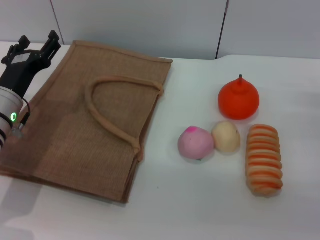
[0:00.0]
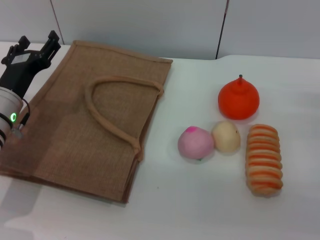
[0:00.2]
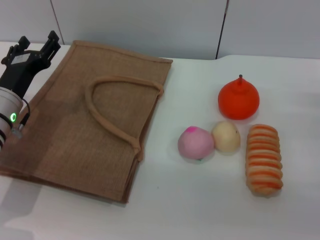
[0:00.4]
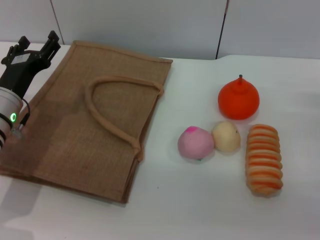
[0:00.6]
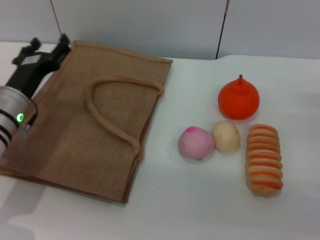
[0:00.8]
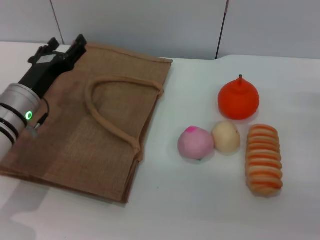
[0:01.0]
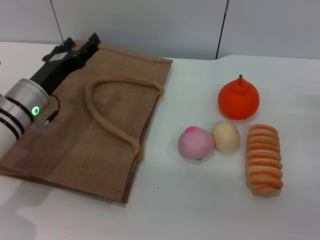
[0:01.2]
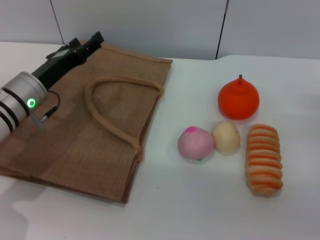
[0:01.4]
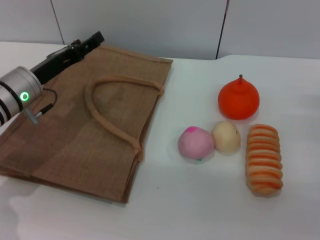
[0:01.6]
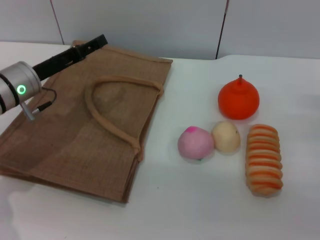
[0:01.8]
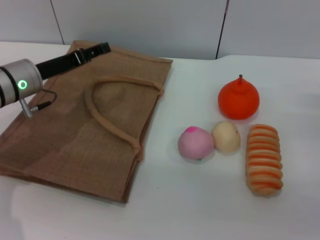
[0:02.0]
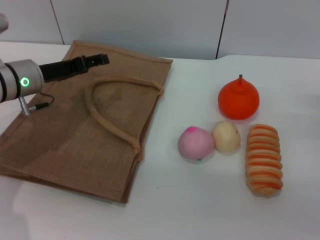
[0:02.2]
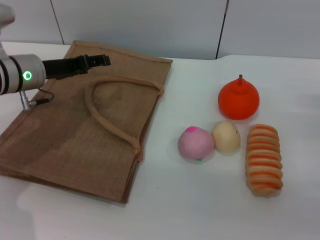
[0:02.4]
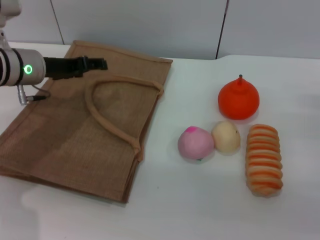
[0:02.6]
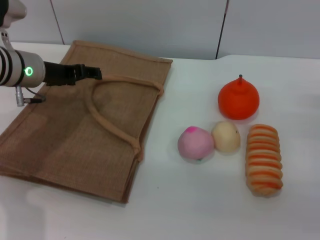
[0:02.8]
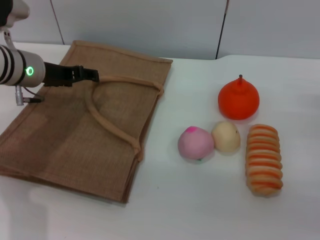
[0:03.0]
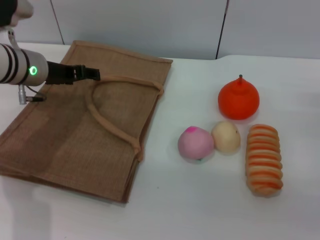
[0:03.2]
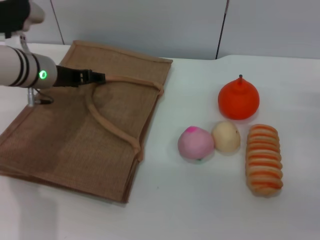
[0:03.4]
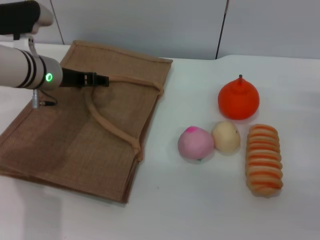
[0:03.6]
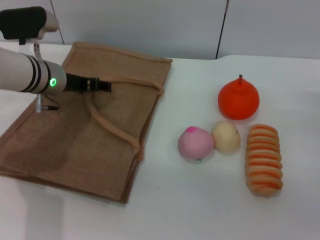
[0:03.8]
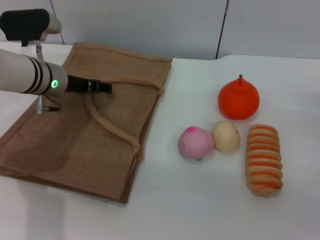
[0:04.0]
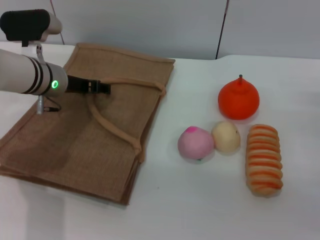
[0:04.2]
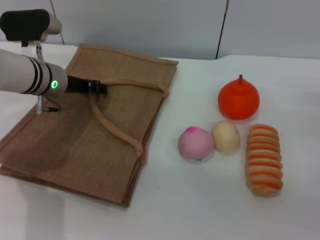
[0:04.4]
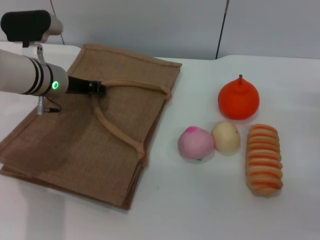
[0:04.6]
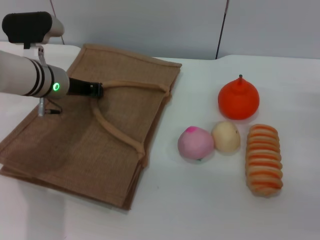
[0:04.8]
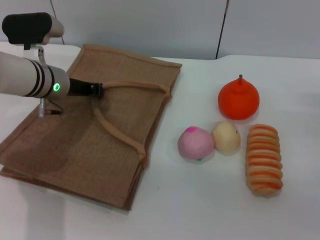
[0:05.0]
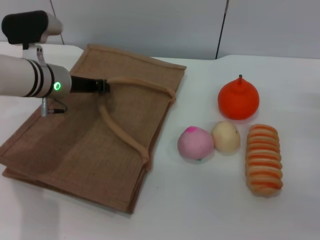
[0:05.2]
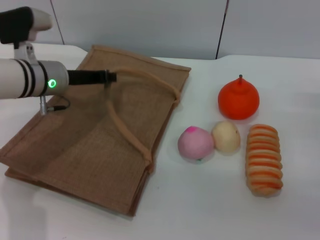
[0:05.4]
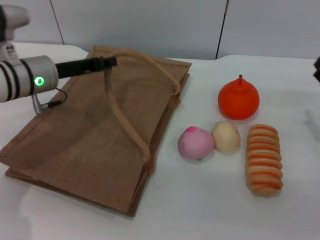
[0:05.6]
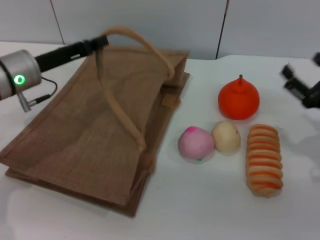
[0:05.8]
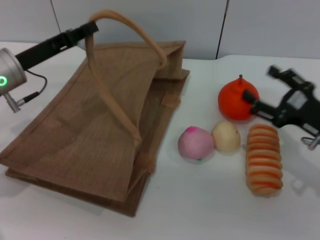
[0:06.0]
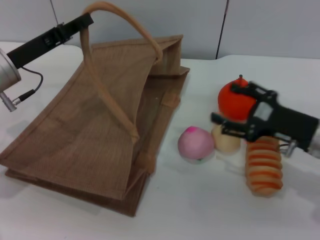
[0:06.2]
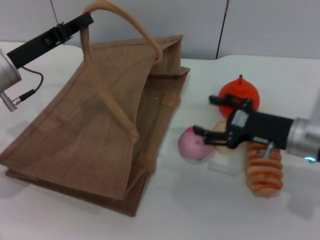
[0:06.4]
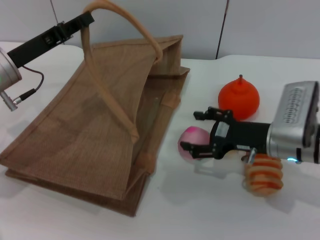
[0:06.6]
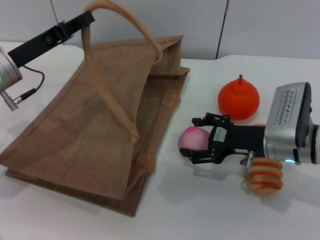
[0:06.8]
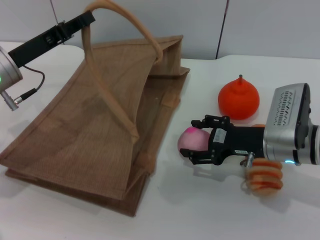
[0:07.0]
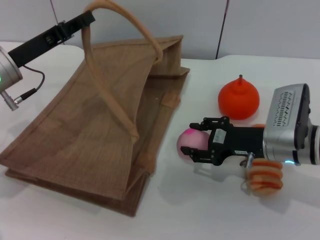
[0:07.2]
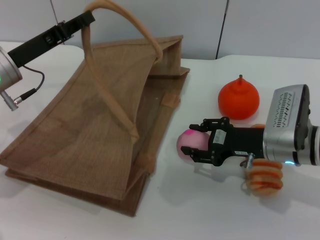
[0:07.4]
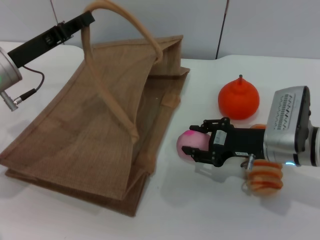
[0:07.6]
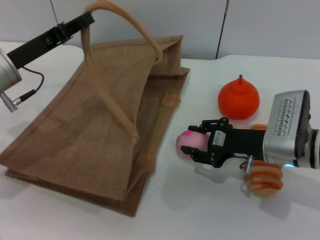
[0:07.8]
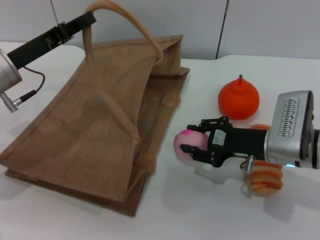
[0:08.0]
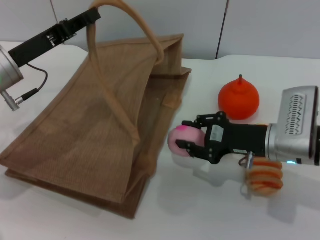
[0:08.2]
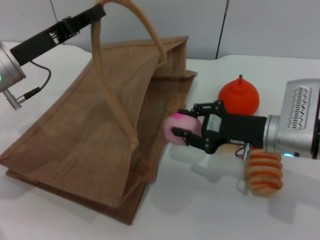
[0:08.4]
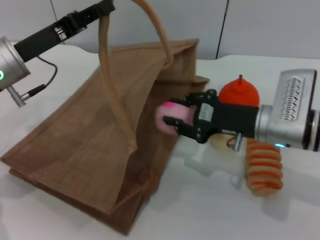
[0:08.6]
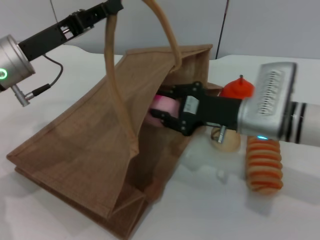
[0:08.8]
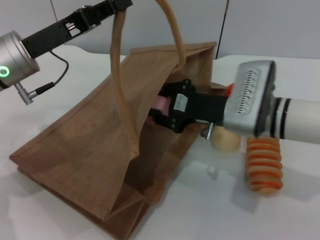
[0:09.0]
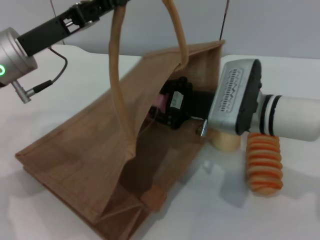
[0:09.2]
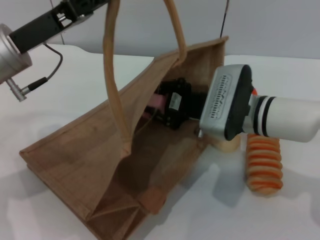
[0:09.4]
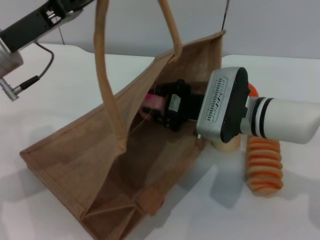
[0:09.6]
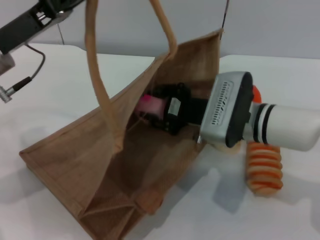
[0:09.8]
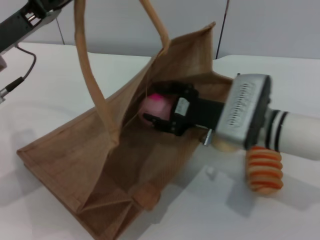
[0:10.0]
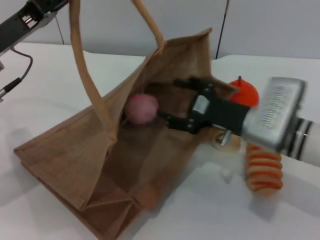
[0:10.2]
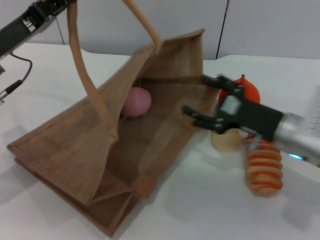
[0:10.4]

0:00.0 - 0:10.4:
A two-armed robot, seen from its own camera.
Task of the whole recording: pick up the peach from the table and place it in the brown handbag.
Step, 0:00.0 - 0:05.4: Lift the woven bag with the left gripper to open it.
Step, 0:05.6 - 0:08.2: Pick up the peach with the right gripper.
0:01.4 - 0:03.0: The left gripper heads upward, covering approximately 5 cm.
0:03.0 - 0:04.4: The grippers stay close to where they were, moving slightly.
0:04.4 - 0:06.0: The right gripper moves to the left, some 5 cm, while the left gripper travels backward and to the left by approximately 10 cm, and closes its fingers.
0:06.0 - 0:07.4: The right gripper shifts about 10 cm to the left, and closes up.
0:07.4 - 0:09.0: The right gripper is displaced to the left by some 5 cm, and closes up.
0:09.0 - 0:10.4: The right gripper moves to the right, roughly 5 cm, and opens its fingers.

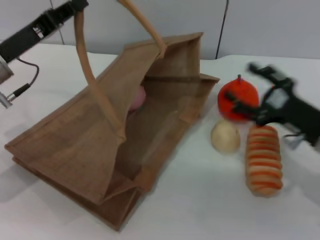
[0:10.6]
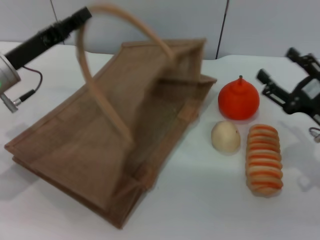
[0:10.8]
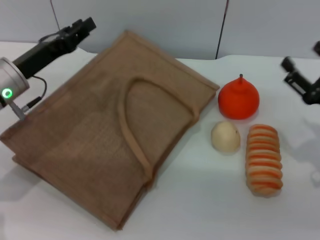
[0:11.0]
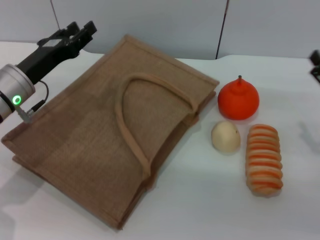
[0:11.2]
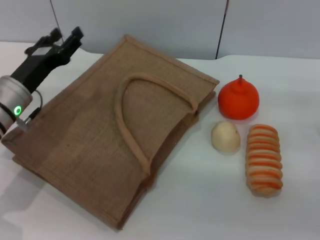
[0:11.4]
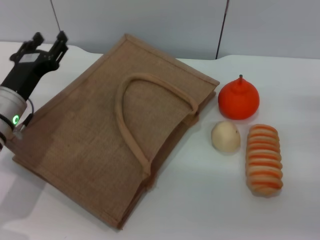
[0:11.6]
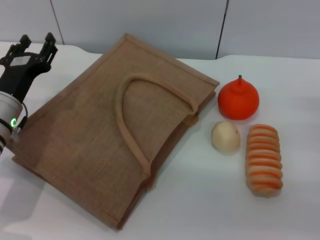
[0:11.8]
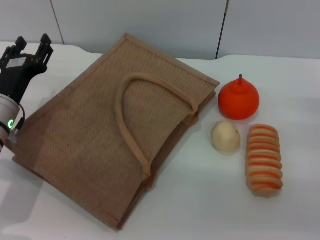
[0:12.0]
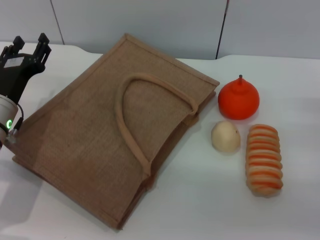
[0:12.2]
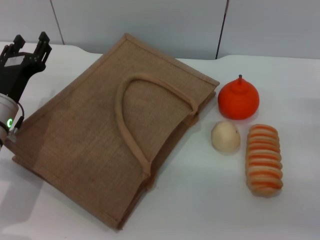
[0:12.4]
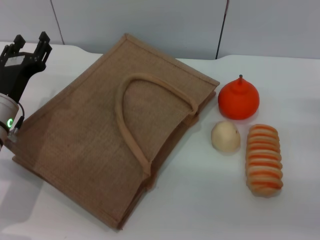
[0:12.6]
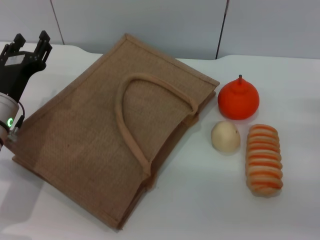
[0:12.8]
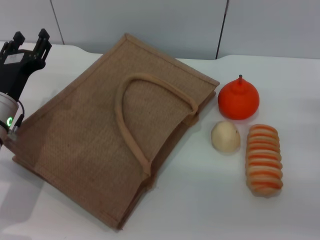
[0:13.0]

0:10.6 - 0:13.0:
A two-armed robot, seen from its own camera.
Task of the whole recording: pick up the peach from the table and place it in the brown handbag.
Step, 0:11.0 - 0:11.8: Lower the woven bag with the left gripper to close it.
0:10.6 - 0:11.8: The right gripper shifts approximately 10 cm to the right, while the left gripper shifts some 10 cm downward, and opens.
0:11.8 - 0:13.0: Neither gripper changes place.

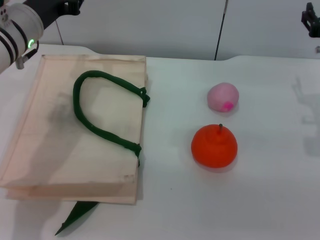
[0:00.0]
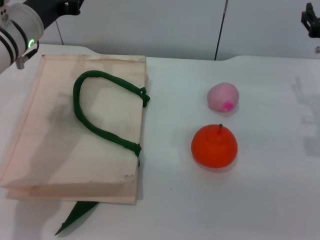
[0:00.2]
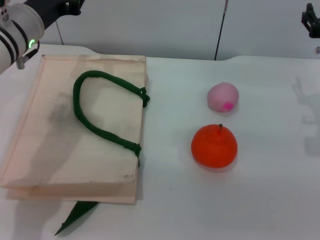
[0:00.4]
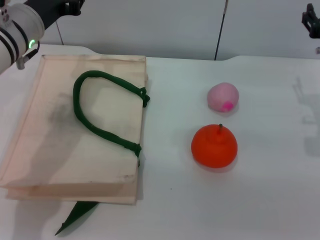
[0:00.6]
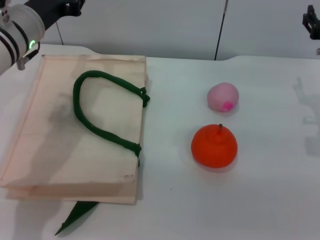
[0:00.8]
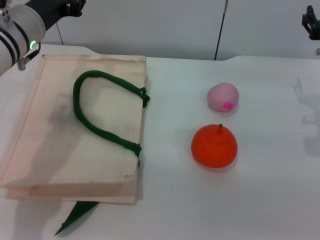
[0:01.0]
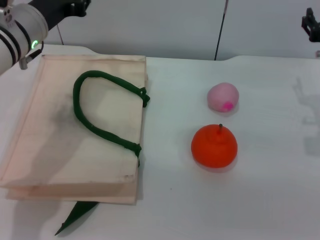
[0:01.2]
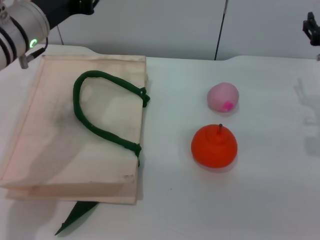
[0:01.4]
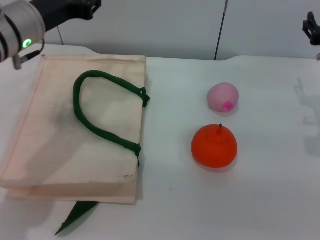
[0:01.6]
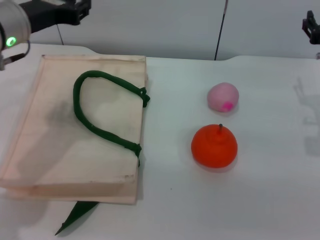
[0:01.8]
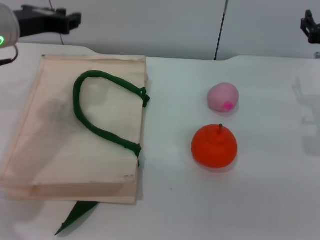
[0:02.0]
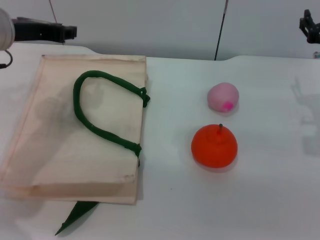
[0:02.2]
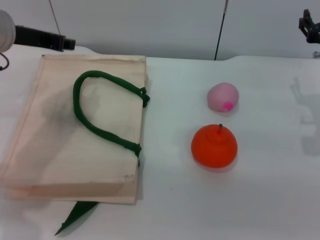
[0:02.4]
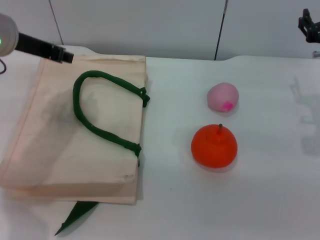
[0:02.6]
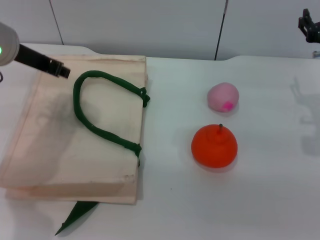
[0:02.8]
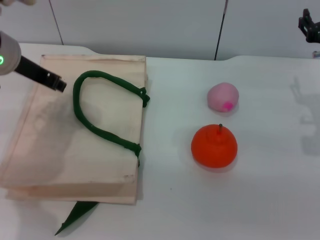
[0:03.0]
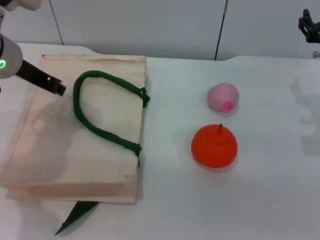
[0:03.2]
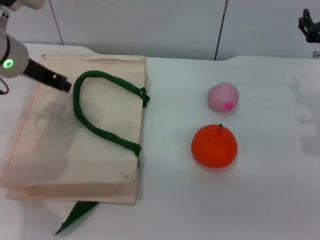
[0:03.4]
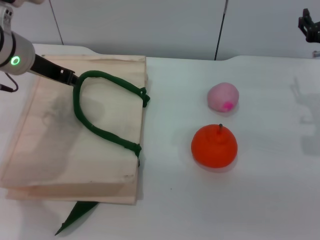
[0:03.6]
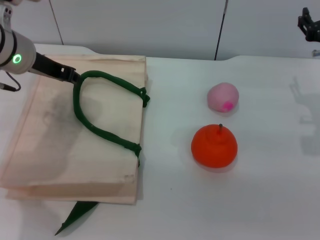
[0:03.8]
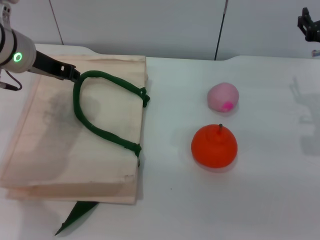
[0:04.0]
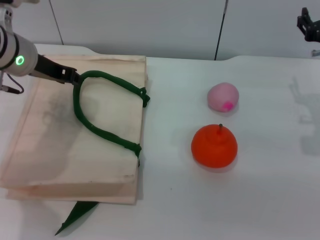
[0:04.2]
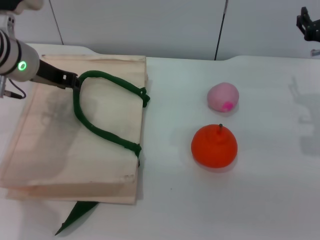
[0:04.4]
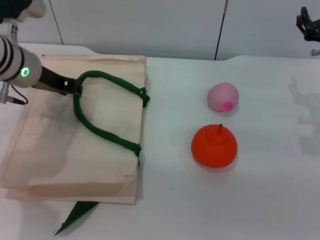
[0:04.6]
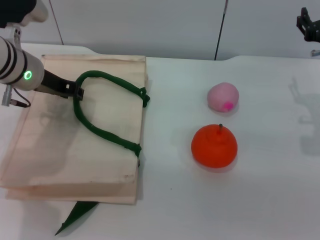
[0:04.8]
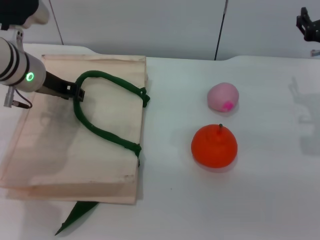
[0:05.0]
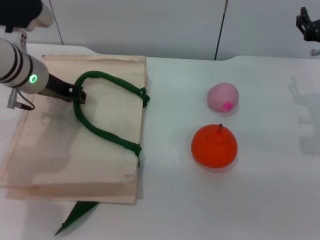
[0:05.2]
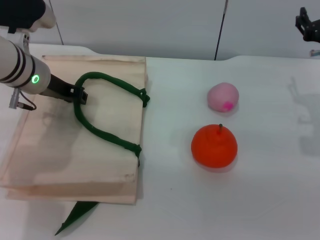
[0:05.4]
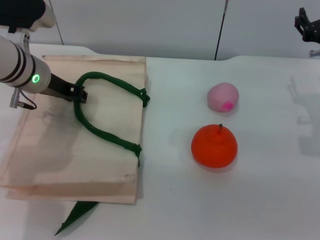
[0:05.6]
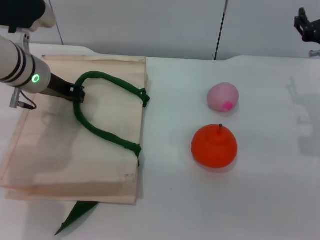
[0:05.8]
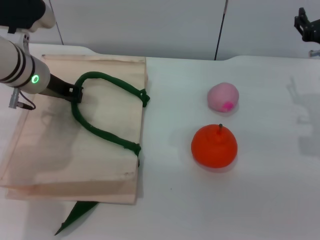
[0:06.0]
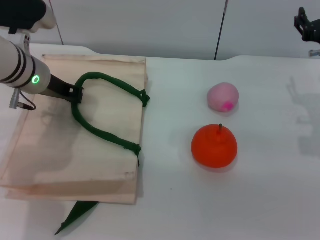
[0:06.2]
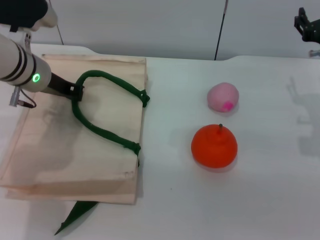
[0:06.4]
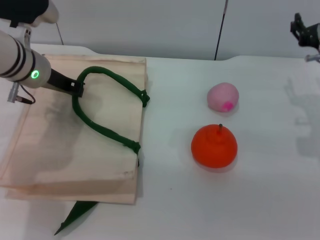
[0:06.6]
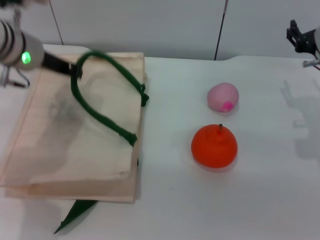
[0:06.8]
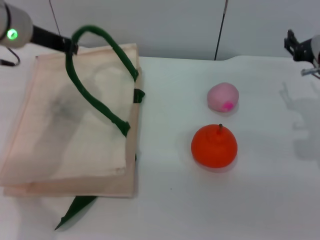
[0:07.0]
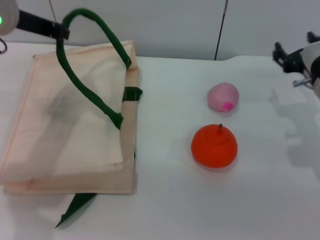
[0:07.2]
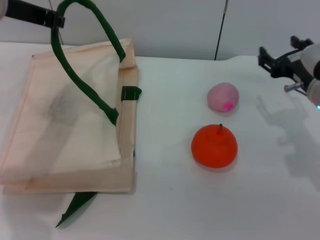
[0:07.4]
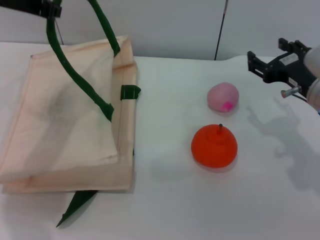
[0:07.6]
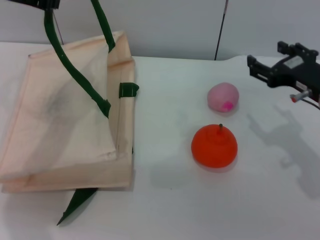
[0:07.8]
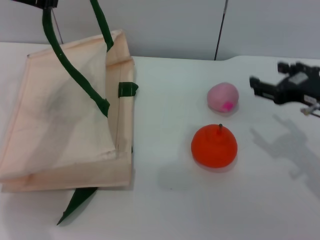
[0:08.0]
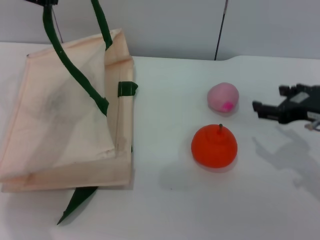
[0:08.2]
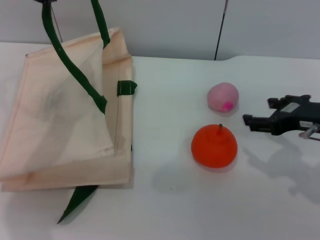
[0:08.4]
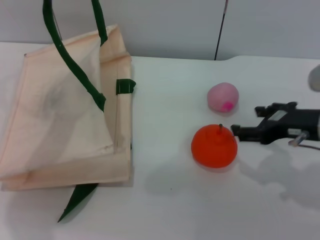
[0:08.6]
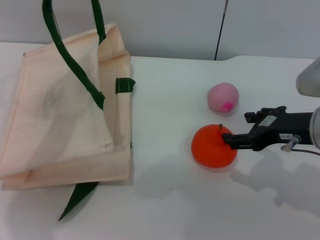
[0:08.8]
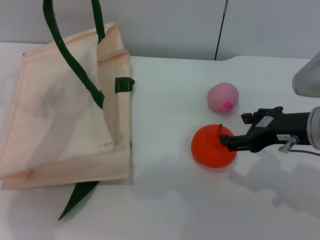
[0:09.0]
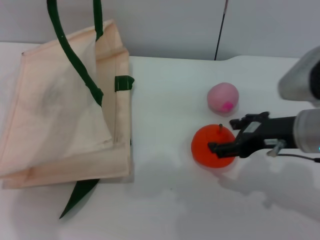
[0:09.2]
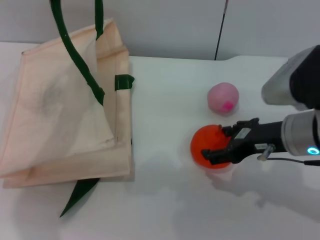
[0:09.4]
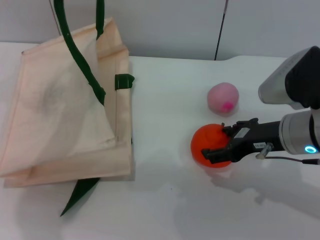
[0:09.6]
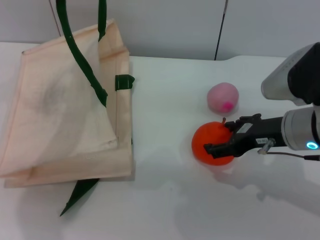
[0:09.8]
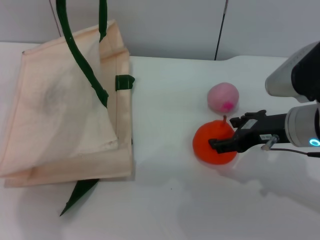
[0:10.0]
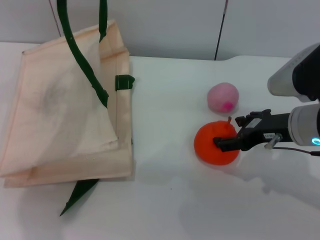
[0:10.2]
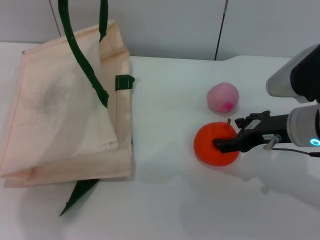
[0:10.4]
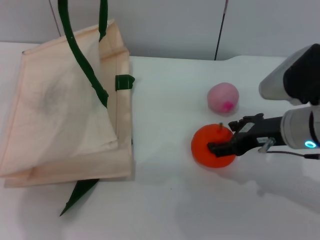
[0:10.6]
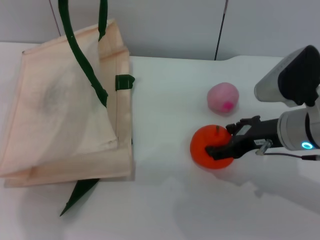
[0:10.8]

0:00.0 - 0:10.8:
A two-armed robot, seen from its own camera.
Task of the whole recording: pick up the orange and peach from the table and place it in the white handbag.
Step, 0:00.0 - 0:06.4: Lift the woven bag with the left gripper to open it.
0:00.0 - 0:01.6: The grippers stay close to where they were, moving slightly.
0:03.0 - 0:04.6: The grippers move only a little.
0:04.6 - 0:06.2: The left gripper closes its fingers.
0:06.2 - 0:07.8: The right gripper travels backward by some 5 cm; the left gripper goes roughly 15 cm upward.
0:09.2 - 0:10.8: The grippers move only a little.
